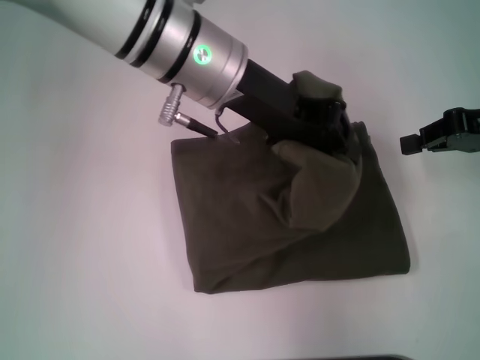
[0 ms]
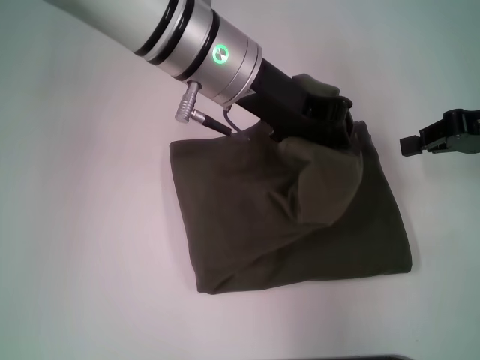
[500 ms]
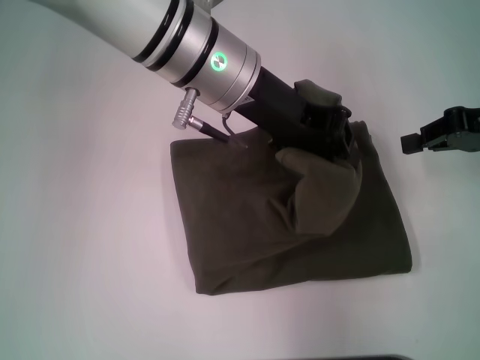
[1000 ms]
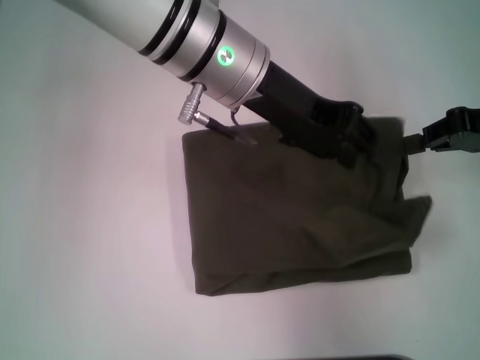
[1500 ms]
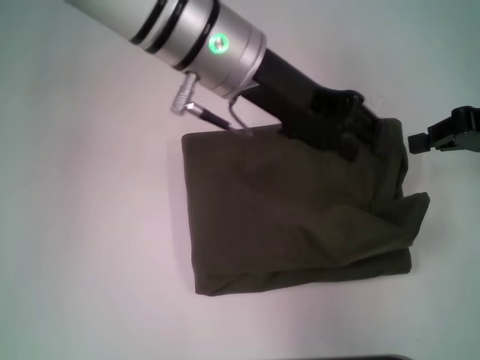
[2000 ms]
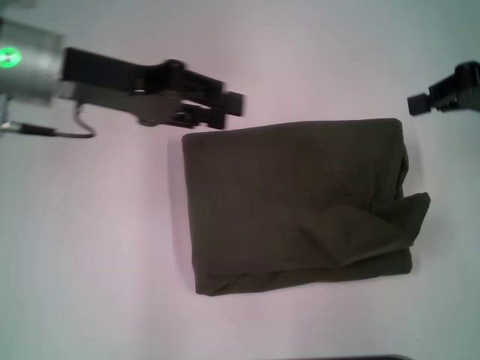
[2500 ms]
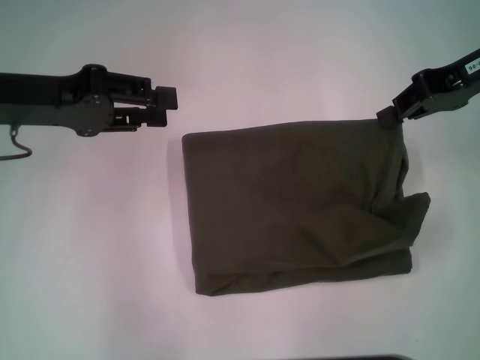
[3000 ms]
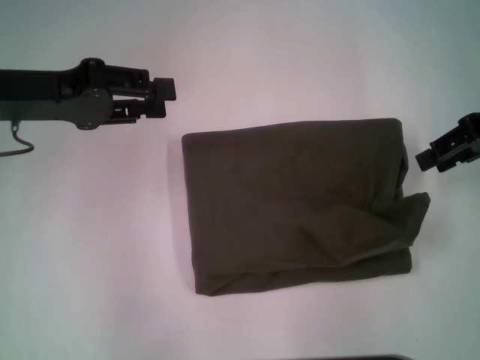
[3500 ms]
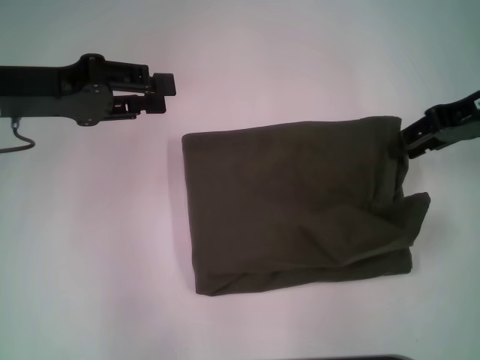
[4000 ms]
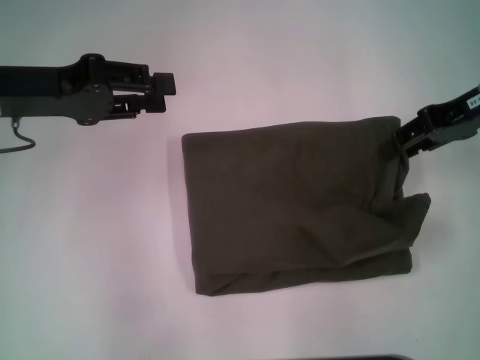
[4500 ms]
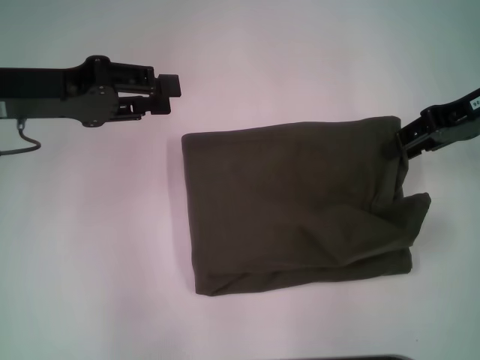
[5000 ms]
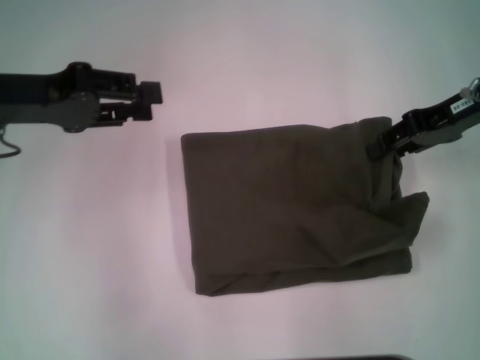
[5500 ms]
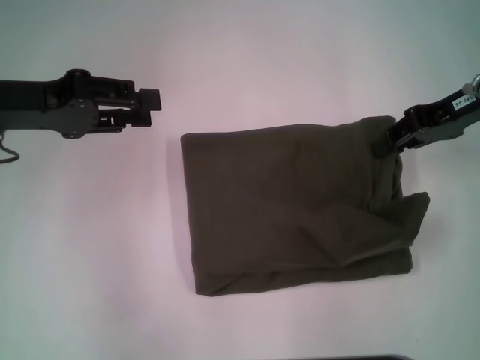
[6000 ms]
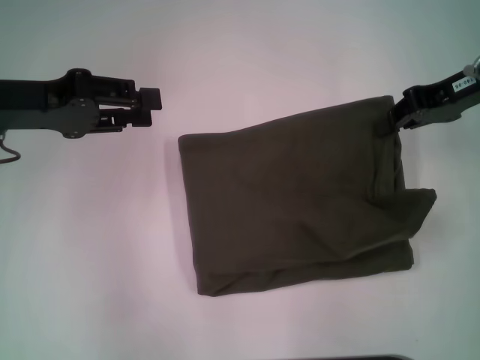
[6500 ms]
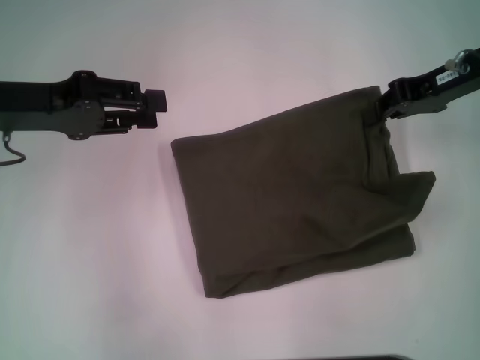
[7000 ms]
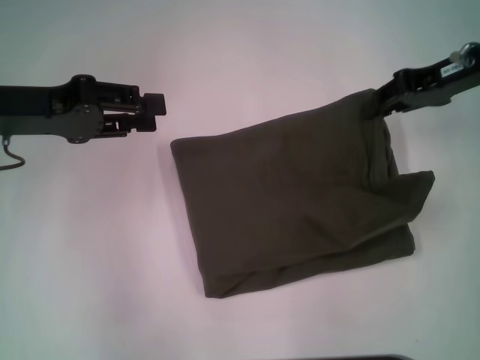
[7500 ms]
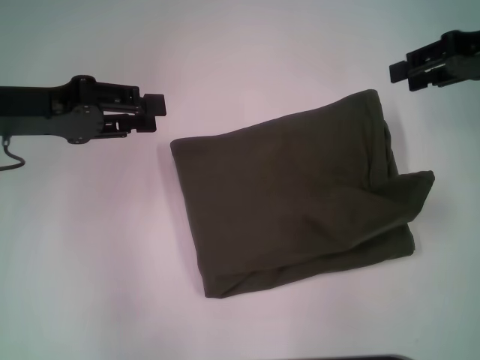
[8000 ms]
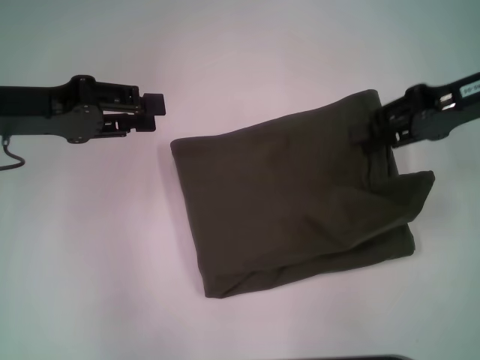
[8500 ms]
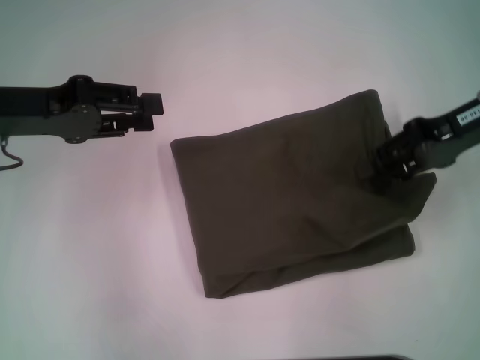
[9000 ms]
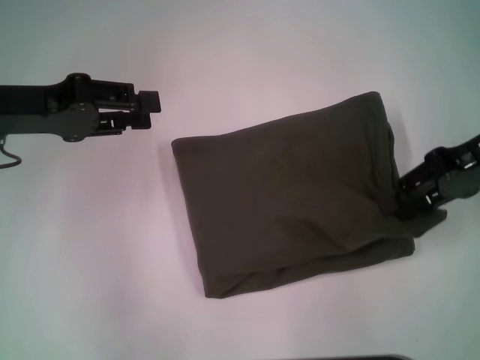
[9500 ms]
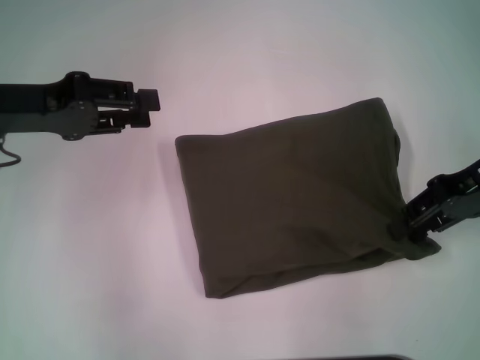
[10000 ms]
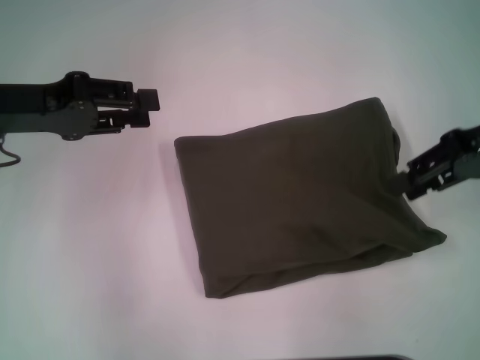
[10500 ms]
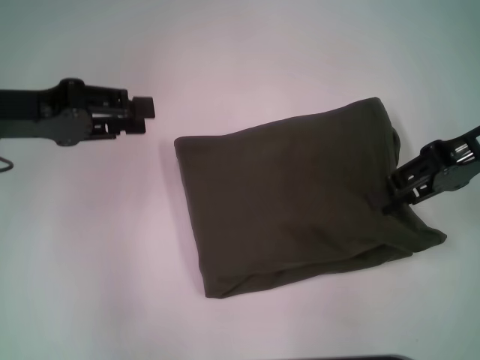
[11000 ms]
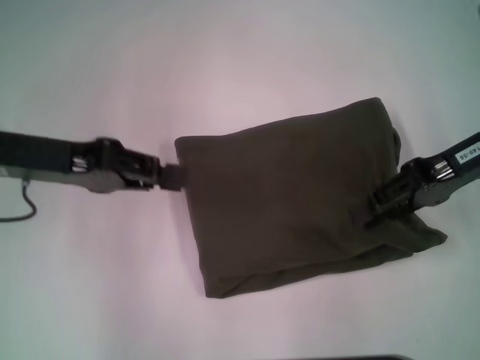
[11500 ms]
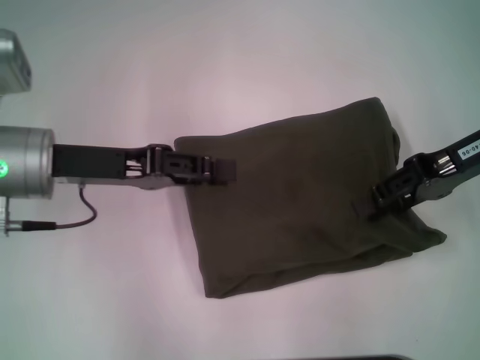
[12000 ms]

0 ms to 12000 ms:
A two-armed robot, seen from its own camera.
0 ms to 2000 ms: The left gripper opens its fingers.
2000 ms to 4000 ms: The right gripper opens, while the left gripper is displaced to the left by some 20 cm.
4000 ms to 6000 ms: The grippers move only a little.
6000 ms to 8000 ms: The right gripper moves about 5 cm.
8000 ms to 10000 ms: The right gripper travels downward and backward by roughly 10 cm.
10000 ms to 12000 ms: The left gripper goes approximately 5 cm to the right.

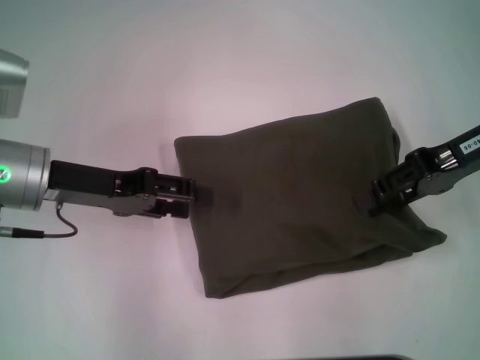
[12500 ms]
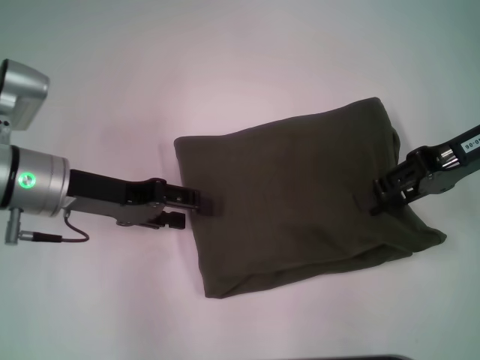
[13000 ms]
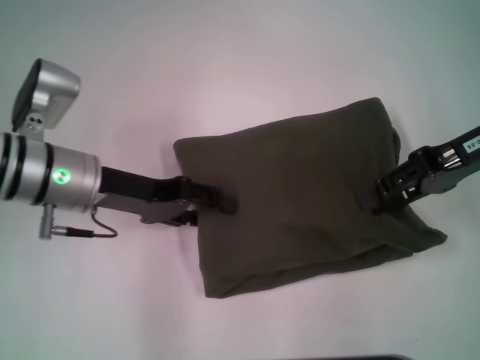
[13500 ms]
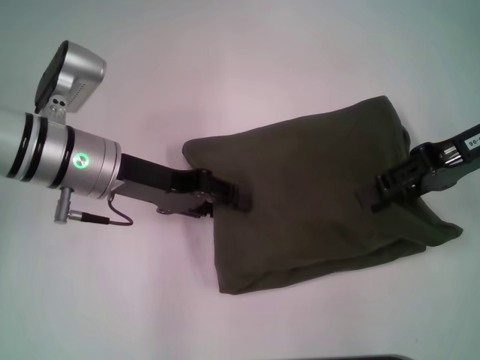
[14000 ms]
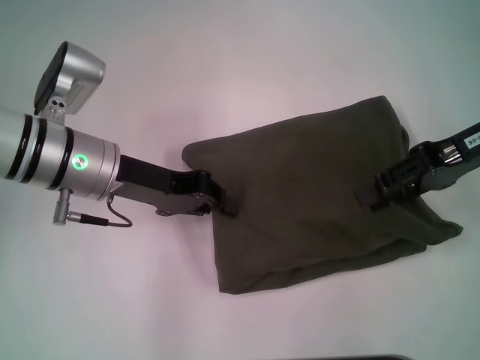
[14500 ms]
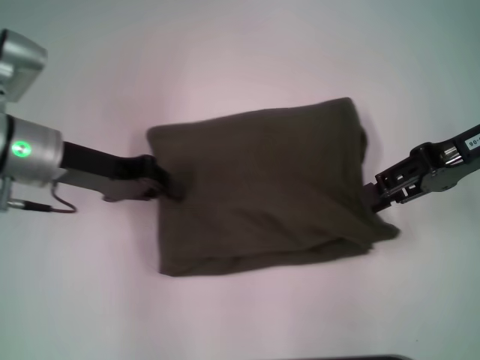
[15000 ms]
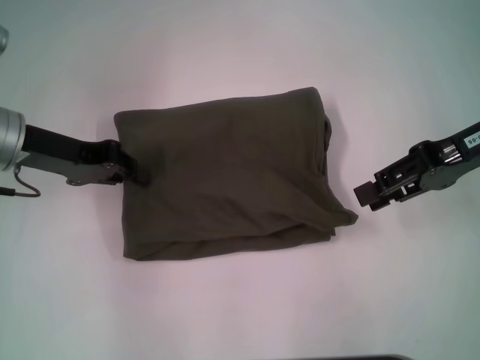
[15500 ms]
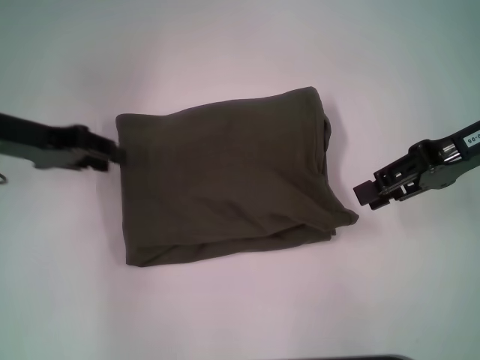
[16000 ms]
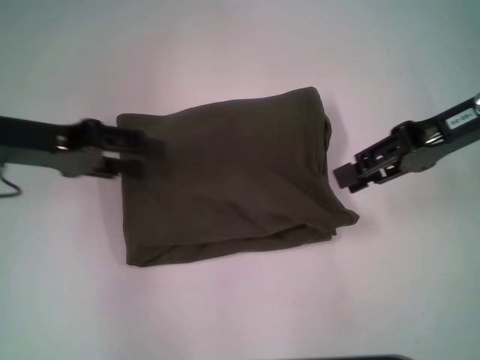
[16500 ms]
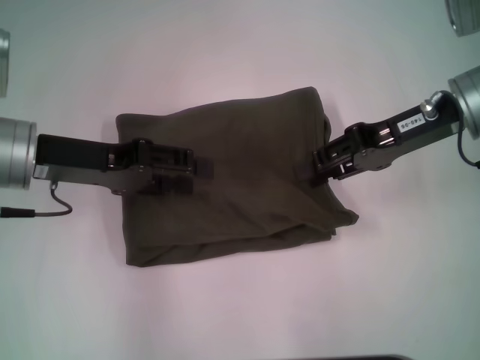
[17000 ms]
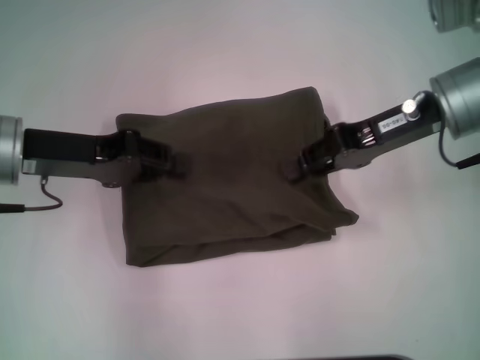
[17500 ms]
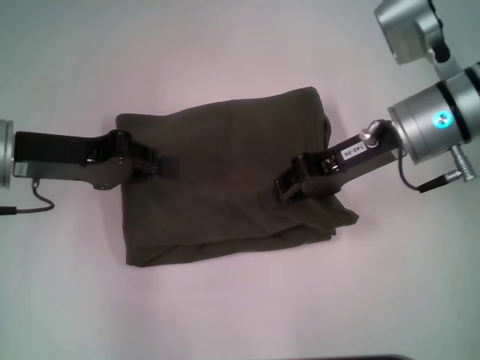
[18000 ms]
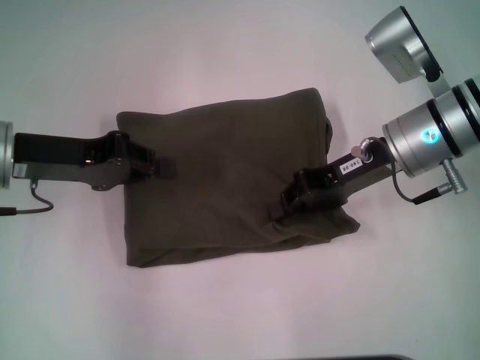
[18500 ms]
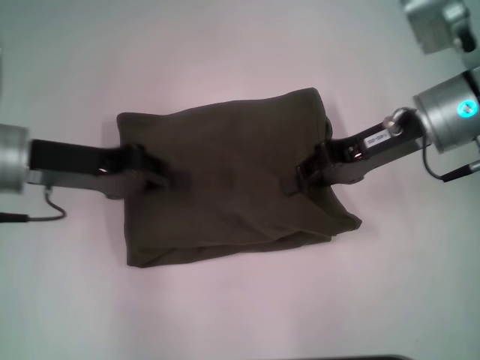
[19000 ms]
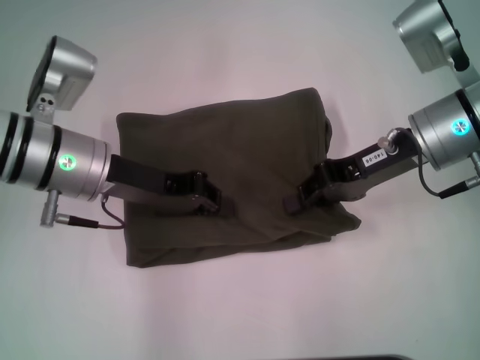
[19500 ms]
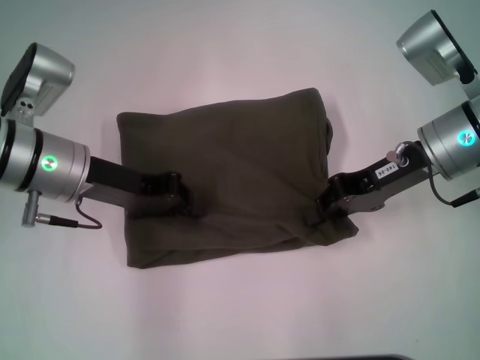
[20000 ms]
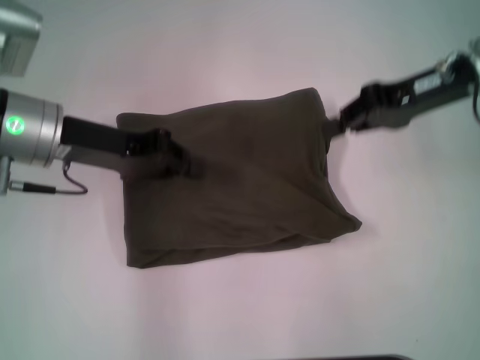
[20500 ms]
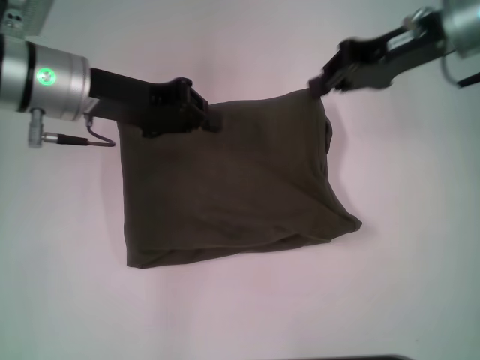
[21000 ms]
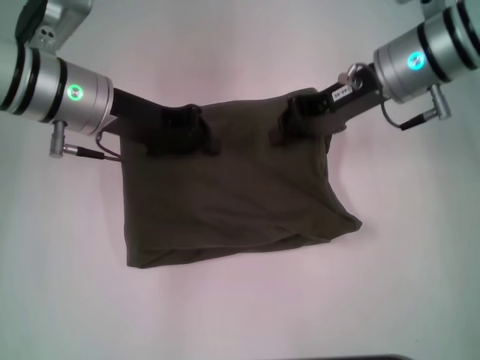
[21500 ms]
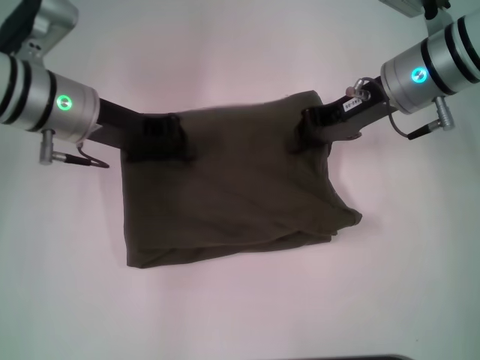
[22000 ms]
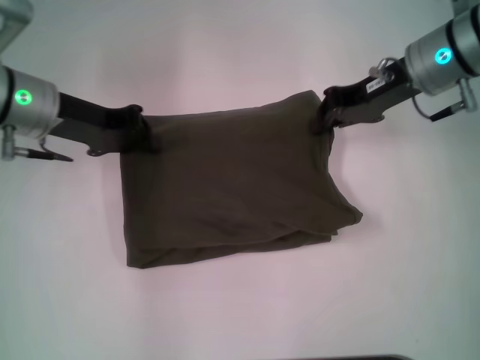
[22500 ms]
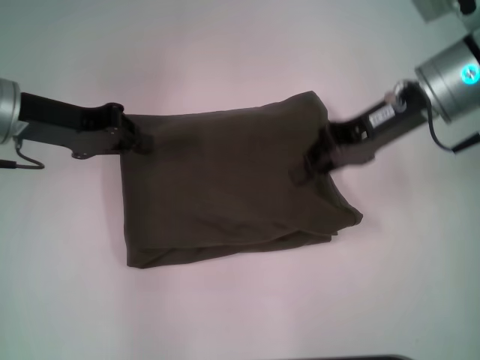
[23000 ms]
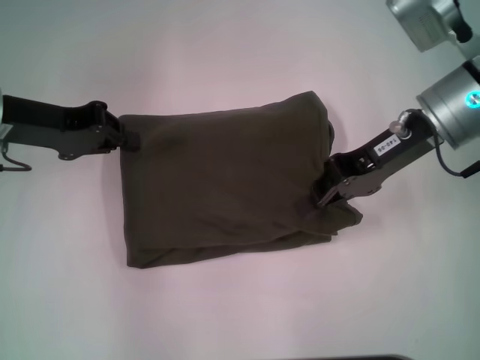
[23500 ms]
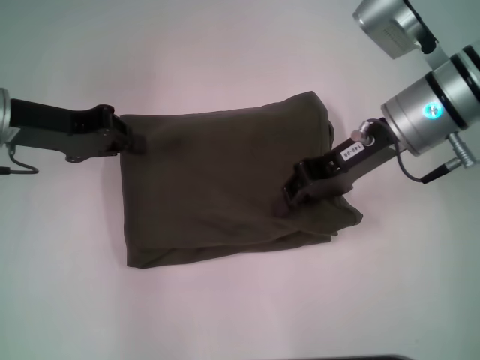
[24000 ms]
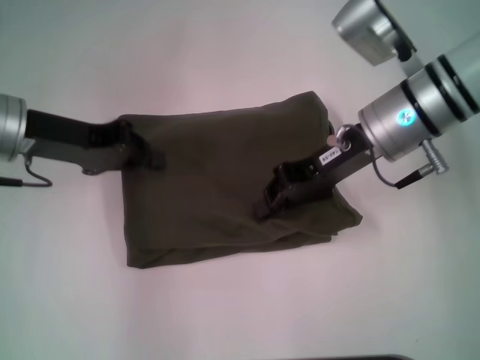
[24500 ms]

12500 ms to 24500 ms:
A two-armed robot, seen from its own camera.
12500 ms to 14500 ms: The left gripper moves to the right, about 5 cm, and closes its fingers.
14500 ms to 16500 ms: The left gripper is displaced to the left and upward by about 10 cm, and opens.
16500 ms to 18500 ms: The left gripper closes its fingers, while the right gripper travels to the left and downward by some 10 cm, and closes up.
18500 ms to 20500 ms: The right gripper is displaced upward and to the right by roughly 10 cm.
20500 ms to 22500 ms: The right gripper changes place by approximately 5 cm.
22500 ms to 24500 ms: The right gripper goes roughly 5 cm to the left and backward.

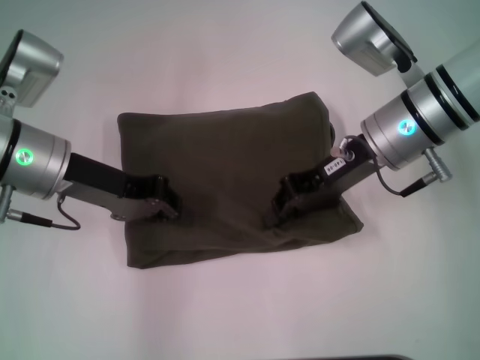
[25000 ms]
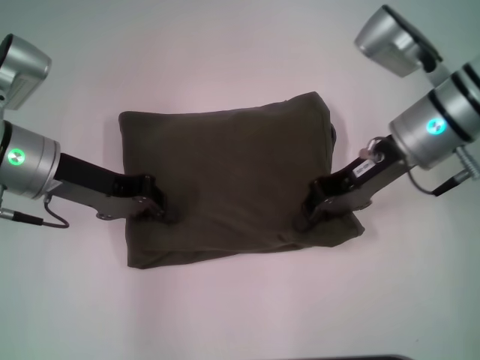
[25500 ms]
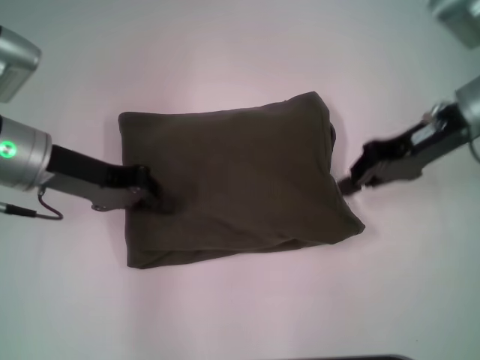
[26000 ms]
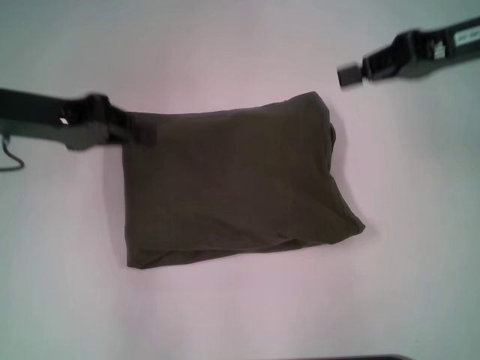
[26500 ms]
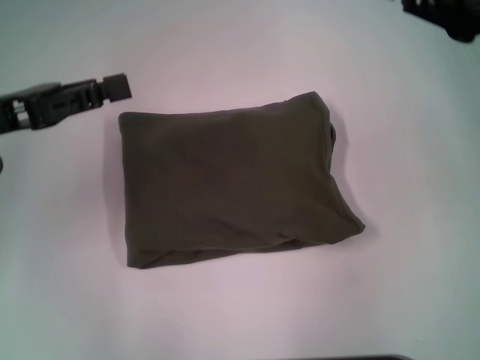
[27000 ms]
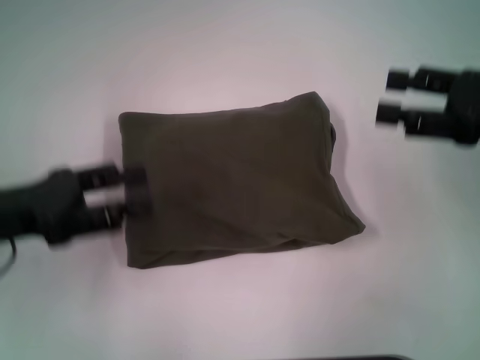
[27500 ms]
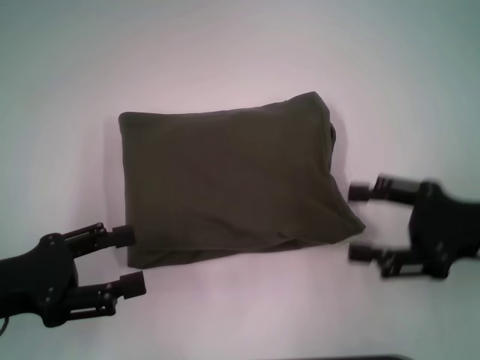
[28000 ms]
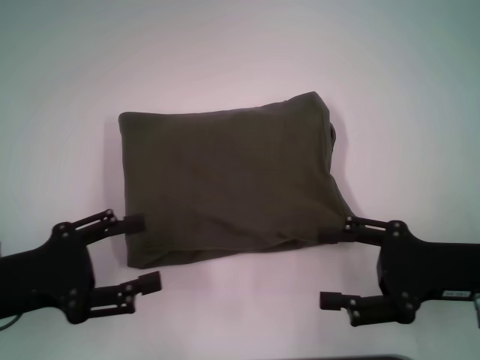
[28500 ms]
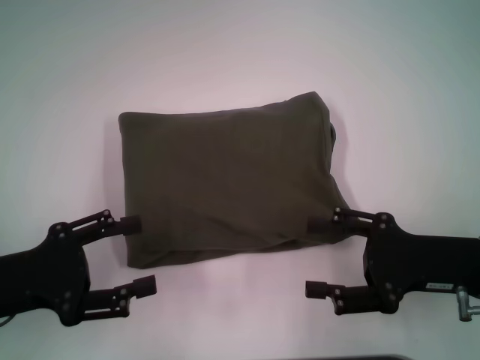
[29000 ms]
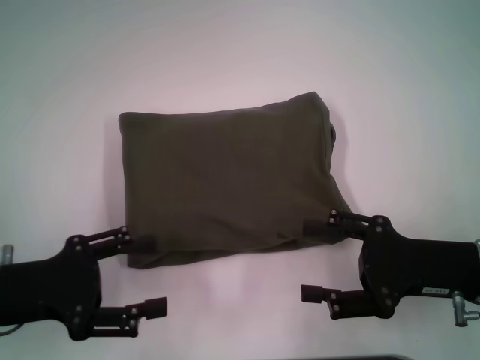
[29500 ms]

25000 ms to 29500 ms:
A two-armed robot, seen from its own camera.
25000 ms to 27000 ms: The right gripper goes about 15 cm to the right and upward. Meanwhile the left gripper moves to the left, some 10 cm.
27000 ms to 29500 ms: The right gripper is displaced downward and backward by roughly 20 cm, and opens up; the left gripper shifts roughly 10 cm backward and downward, and opens.
